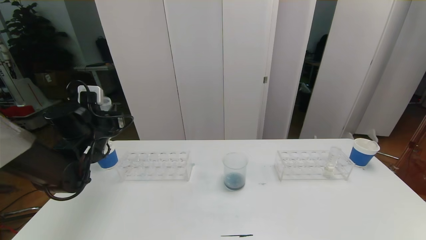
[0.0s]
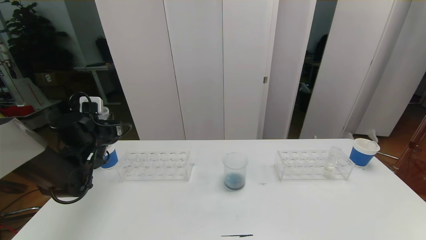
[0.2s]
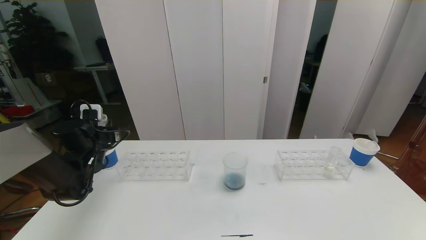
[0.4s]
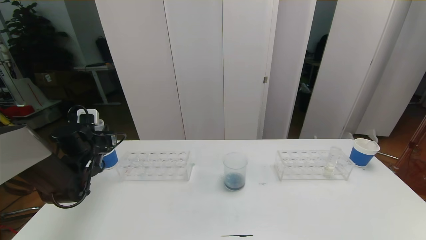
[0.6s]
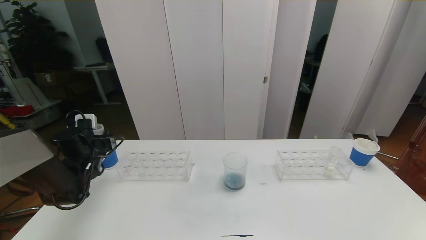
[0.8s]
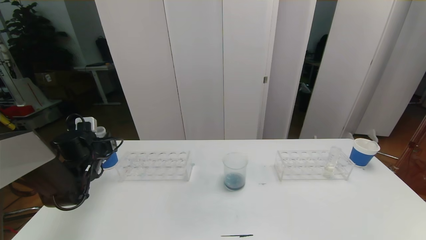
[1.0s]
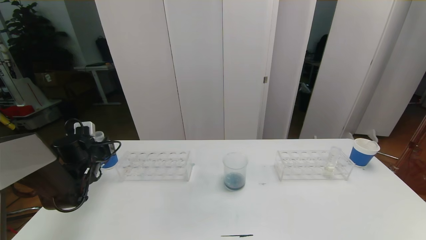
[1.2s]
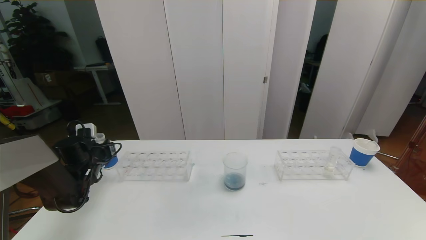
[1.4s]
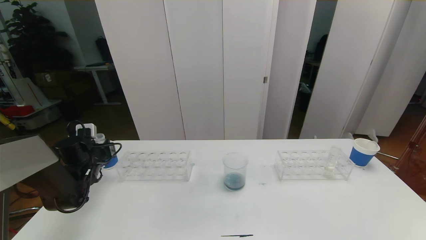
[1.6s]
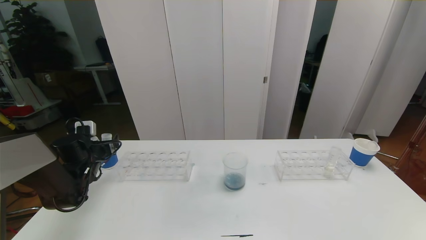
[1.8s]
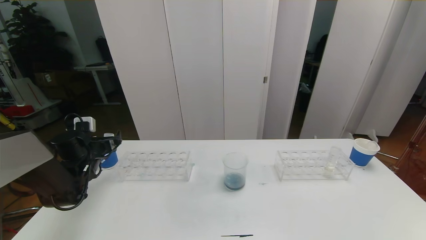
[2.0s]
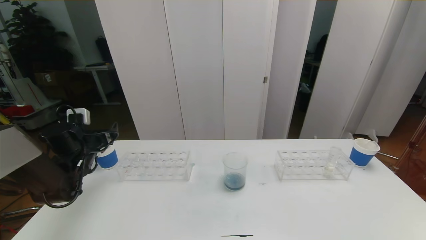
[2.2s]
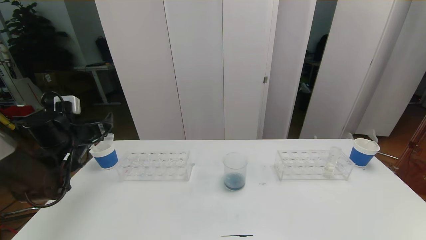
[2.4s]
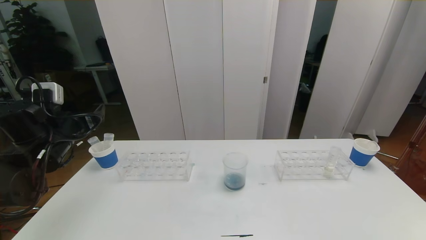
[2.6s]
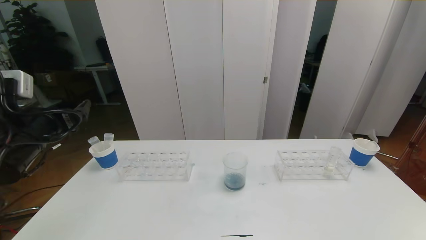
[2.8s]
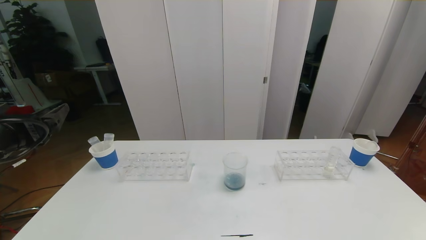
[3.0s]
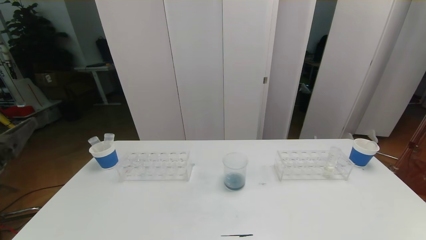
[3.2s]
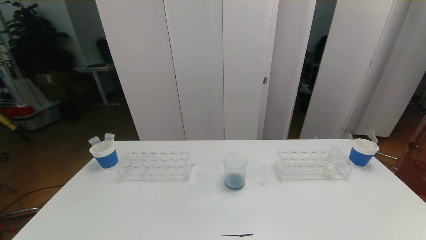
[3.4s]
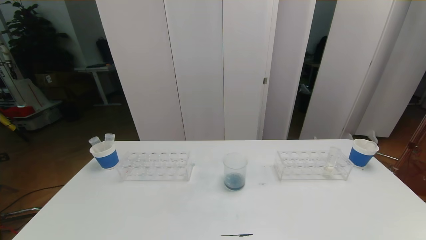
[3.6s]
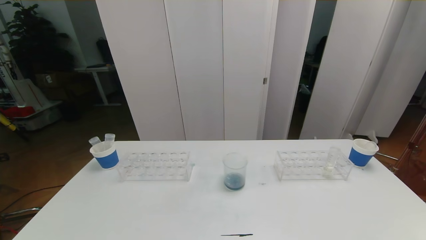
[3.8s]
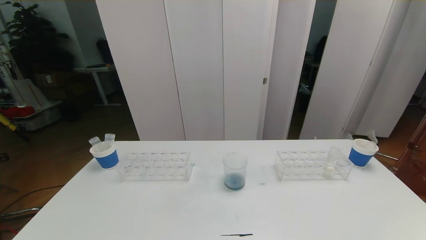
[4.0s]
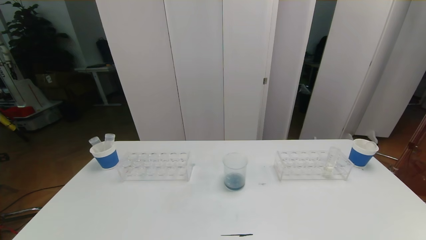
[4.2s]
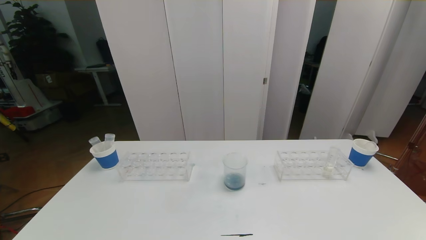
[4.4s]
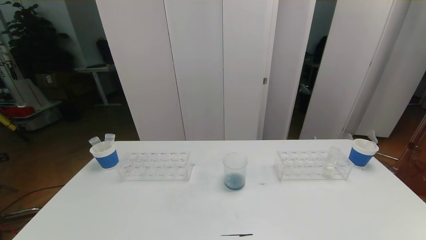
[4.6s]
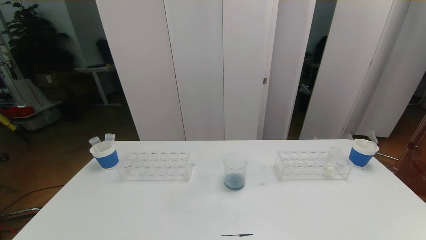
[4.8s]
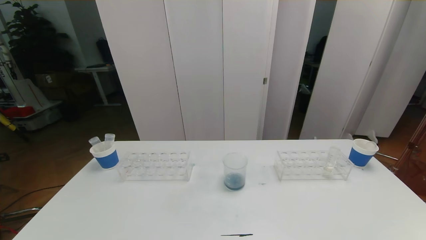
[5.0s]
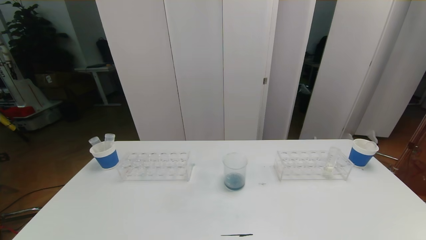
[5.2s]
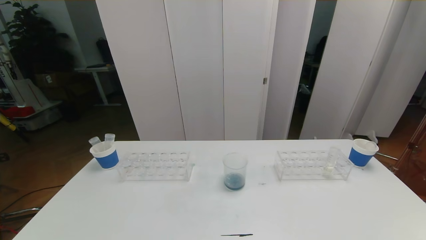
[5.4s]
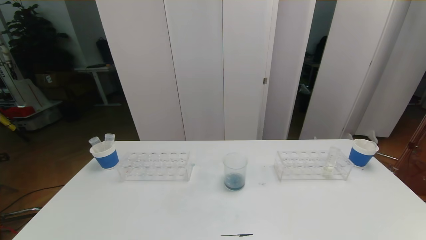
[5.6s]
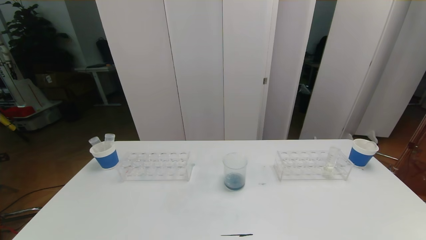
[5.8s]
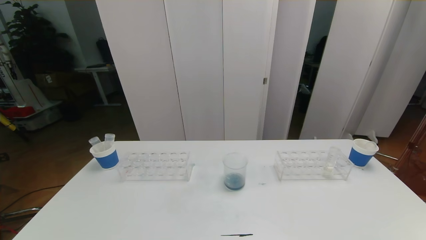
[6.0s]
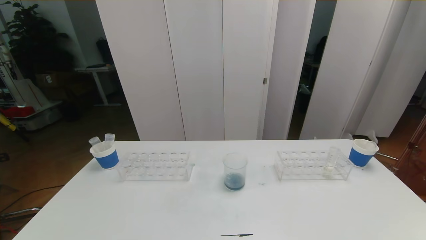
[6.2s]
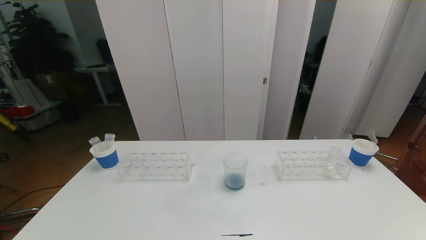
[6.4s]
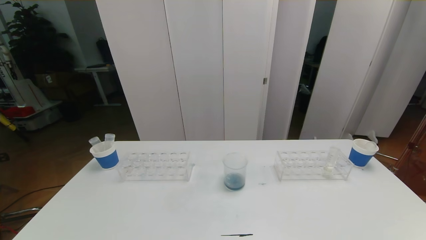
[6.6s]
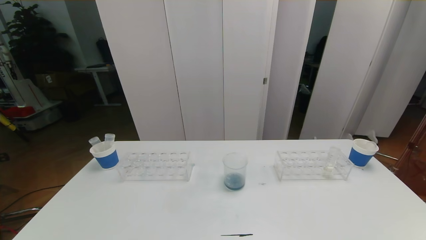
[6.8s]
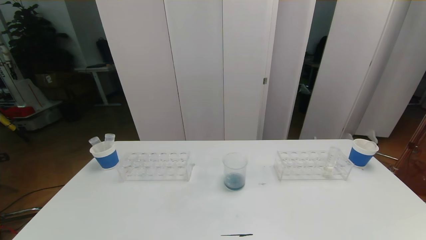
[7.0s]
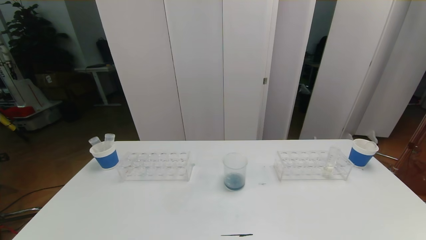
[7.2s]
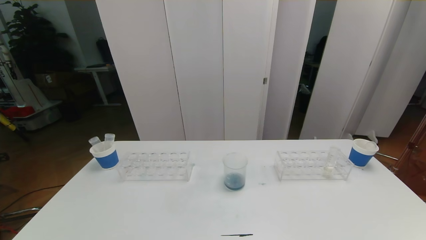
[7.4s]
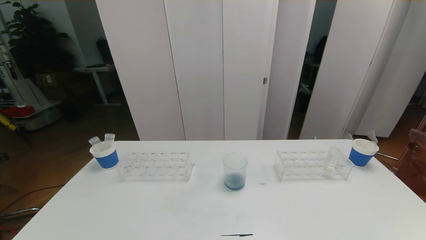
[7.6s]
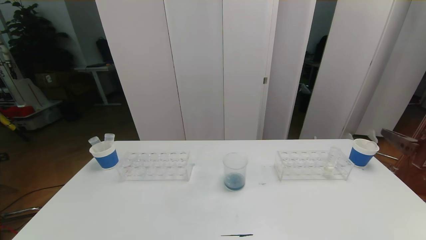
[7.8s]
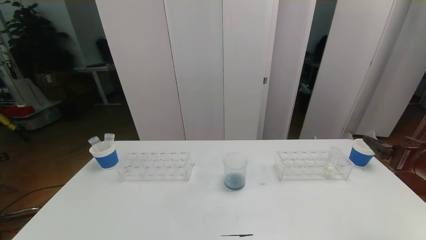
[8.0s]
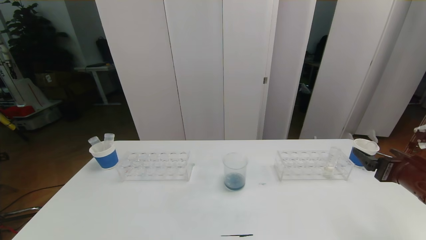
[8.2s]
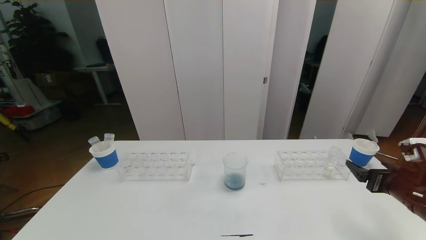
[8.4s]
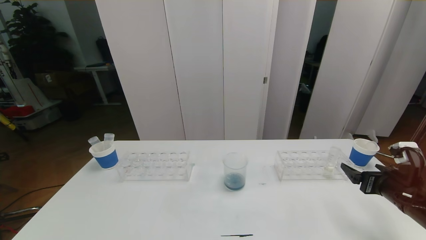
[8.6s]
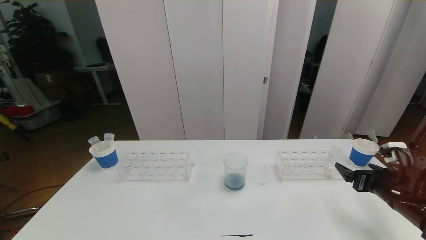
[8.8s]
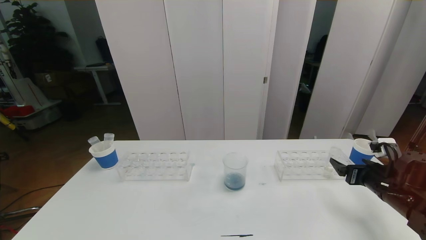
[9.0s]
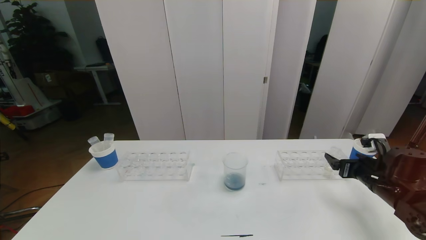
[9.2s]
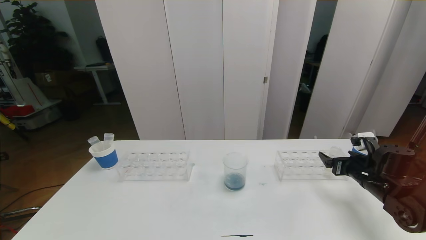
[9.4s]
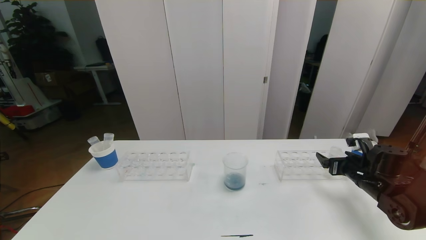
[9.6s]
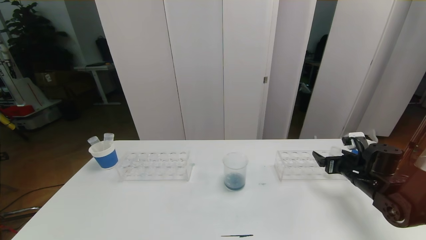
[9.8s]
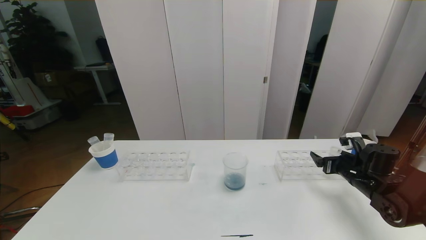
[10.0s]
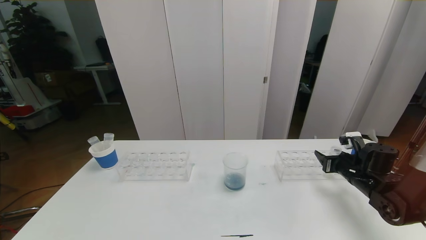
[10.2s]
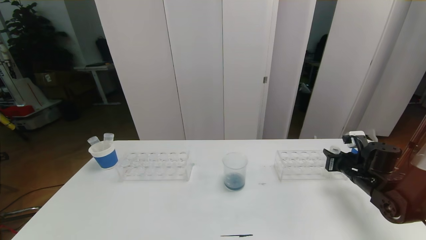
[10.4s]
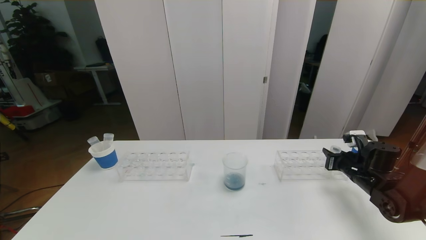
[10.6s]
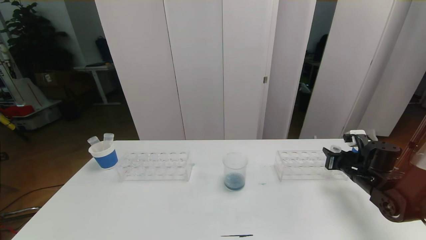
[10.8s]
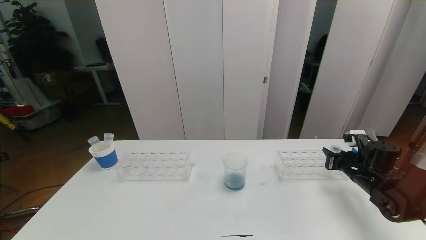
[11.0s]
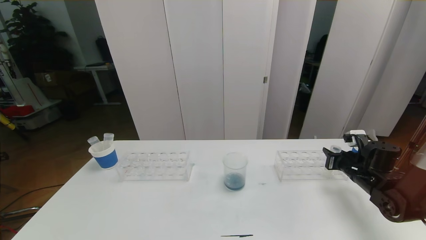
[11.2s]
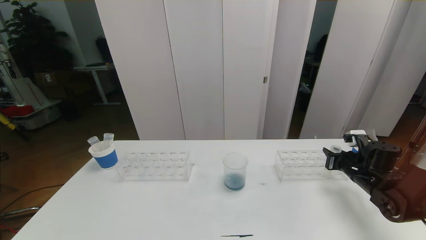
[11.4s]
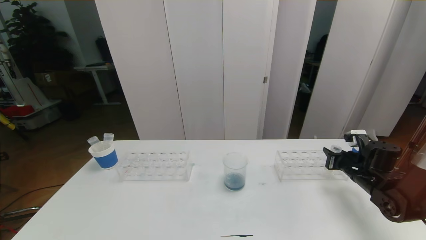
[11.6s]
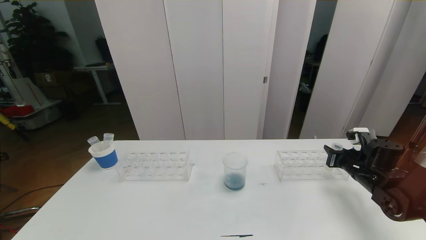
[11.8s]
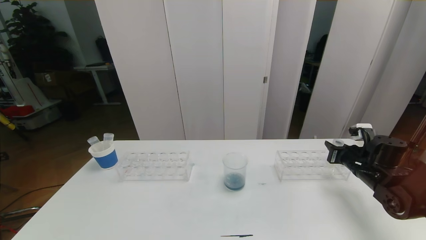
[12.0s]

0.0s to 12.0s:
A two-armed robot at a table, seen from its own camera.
Task of the whole recording: pick up the test tube with red pigment the test tube with blue pigment and the test tube with white pigment by grippers and pour them into the beaker.
Step, 0.0s to 4.2s: Pour the orange reagent into the graduated cylinder and place the test tube into the paper cup.
0.0s to 1.6s: The left gripper moves downward and to the left, some 10 cm.
1.6s to 3.0s: The left gripper shifts some 30 cm backward and upward, and opens.
3.0s to 4.4s: The left gripper is displaced backward and downward by approximately 25 cm.
7.6s to 9.0s: The right gripper travels downward and forward by roughly 20 cm.
9.0s to 10.4s: The right gripper is displaced forward by about 5 cm, and closes its fingers.
10.4s to 12.0s: There are only small adjustments of the grippers.

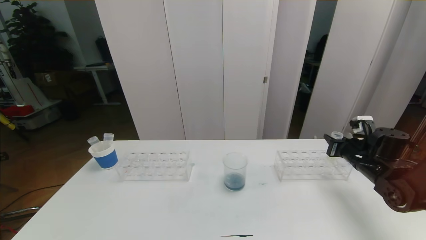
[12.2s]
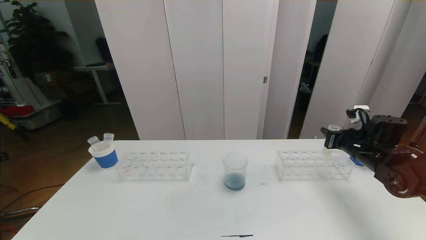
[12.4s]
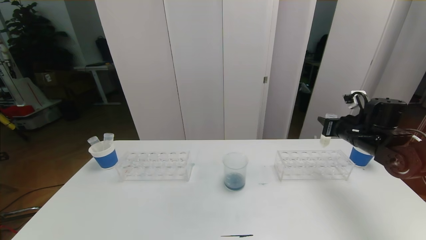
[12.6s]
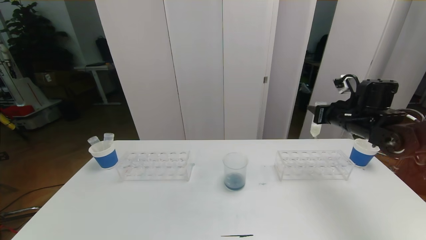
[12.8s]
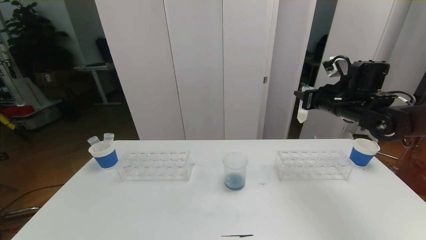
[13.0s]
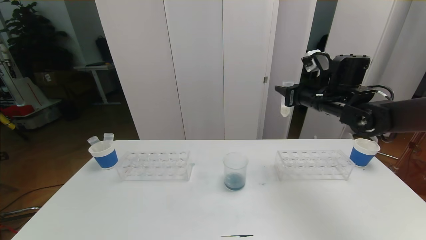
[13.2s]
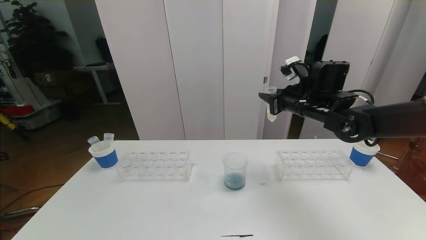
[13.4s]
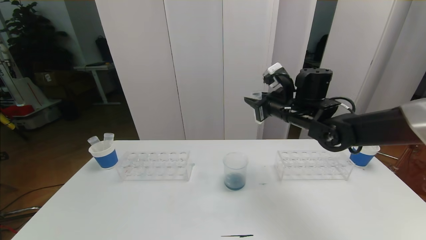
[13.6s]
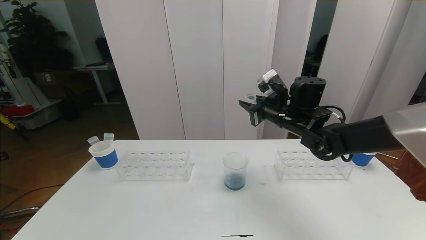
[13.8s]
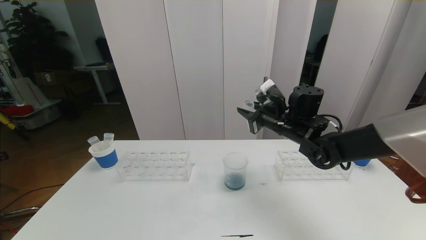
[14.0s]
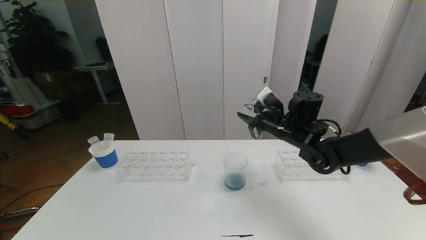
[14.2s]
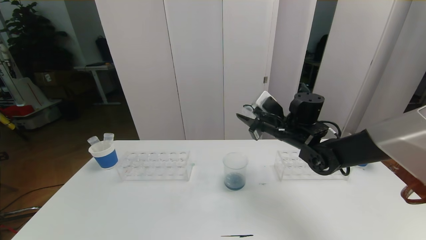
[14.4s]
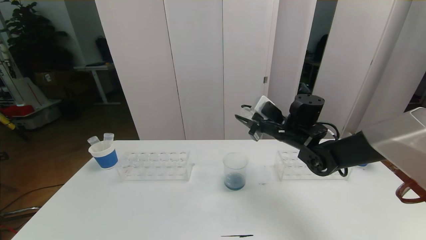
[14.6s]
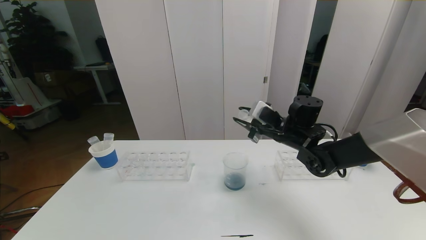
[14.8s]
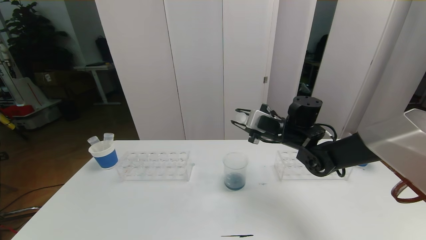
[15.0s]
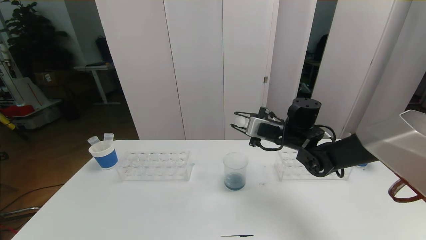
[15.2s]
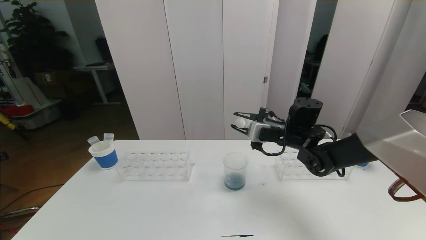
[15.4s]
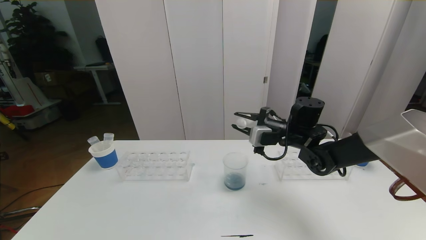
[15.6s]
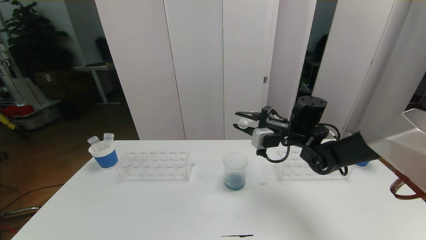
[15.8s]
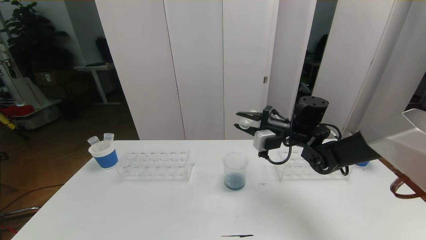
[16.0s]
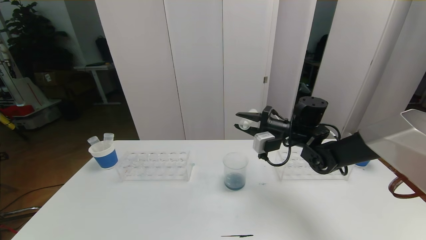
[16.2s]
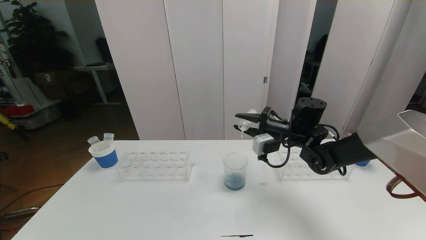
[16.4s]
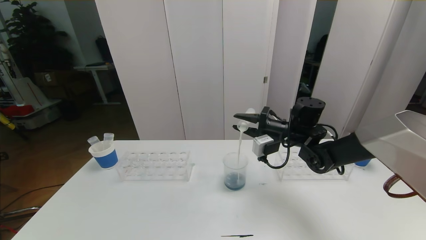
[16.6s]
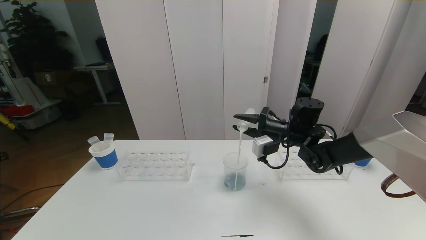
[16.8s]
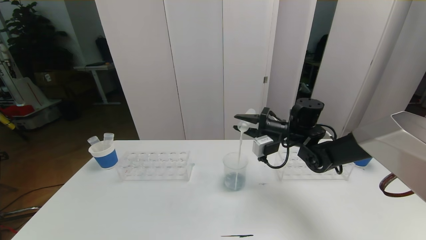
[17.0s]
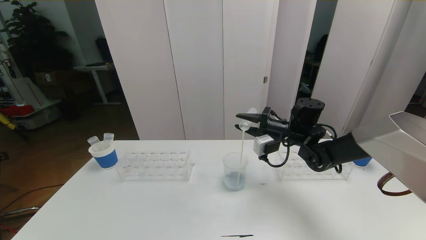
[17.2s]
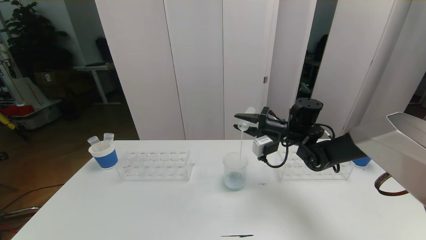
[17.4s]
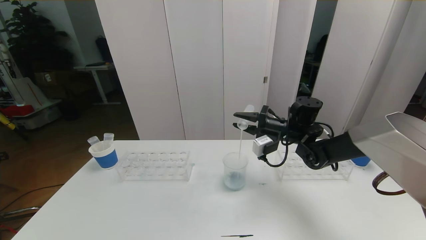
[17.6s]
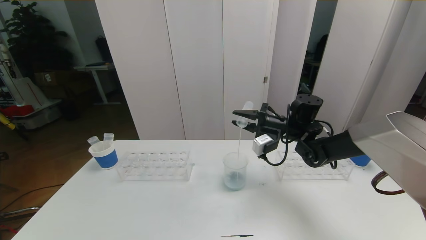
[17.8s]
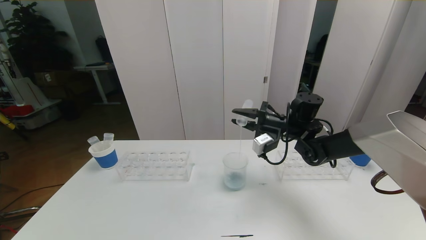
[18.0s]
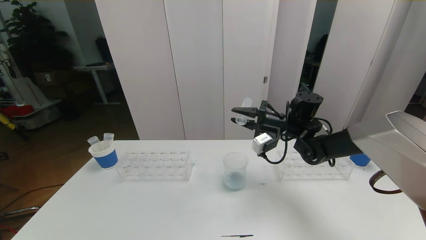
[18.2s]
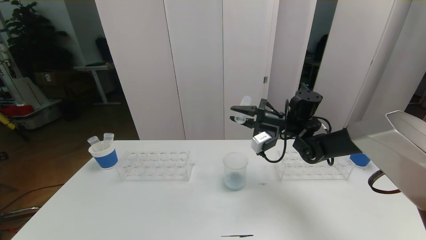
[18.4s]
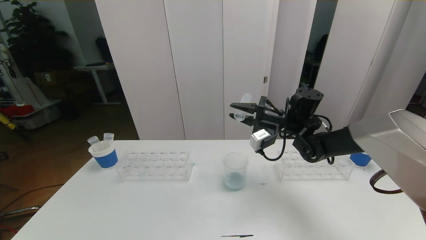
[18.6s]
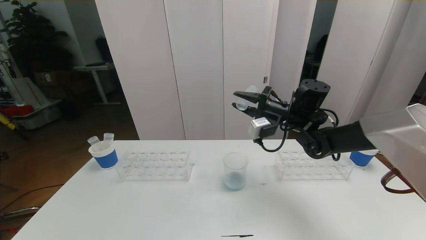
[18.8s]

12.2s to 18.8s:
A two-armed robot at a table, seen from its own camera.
Task of the whole recording: pick up the test tube with red pigment the test tube with blue pigment and the test tube with white pigment by grippers and pour them into the beaker.
12.2s to 13.8s: The right gripper is displaced to the left and upward by some 20 cm.
17.2s to 18.8s: The right gripper is displaced upward by roughly 5 cm.
